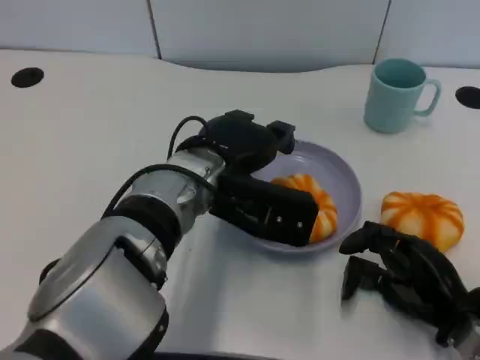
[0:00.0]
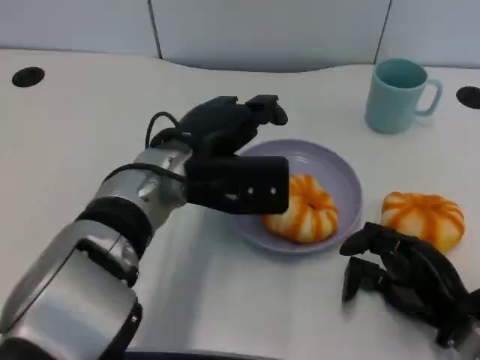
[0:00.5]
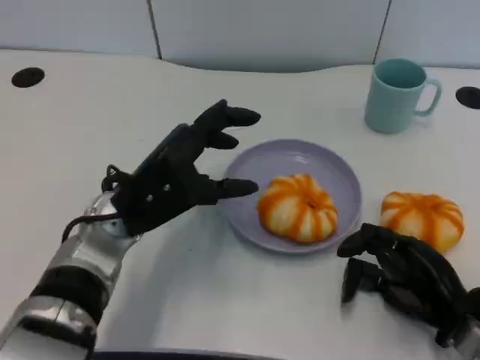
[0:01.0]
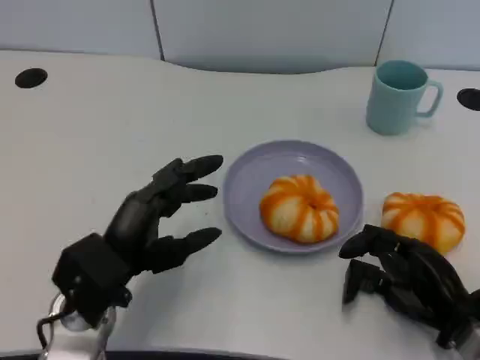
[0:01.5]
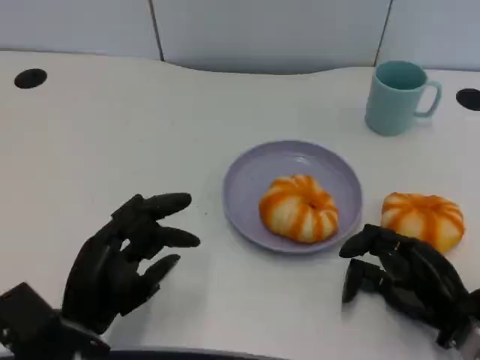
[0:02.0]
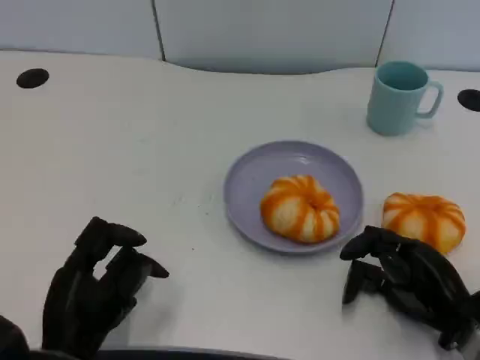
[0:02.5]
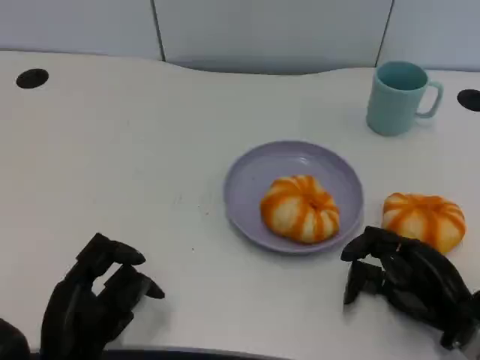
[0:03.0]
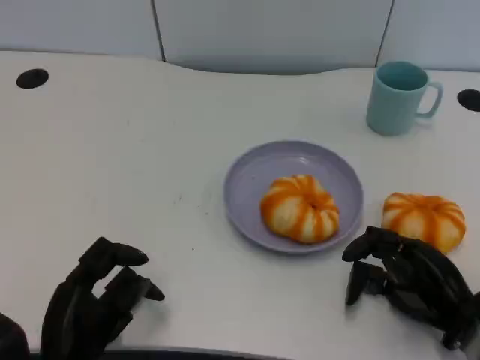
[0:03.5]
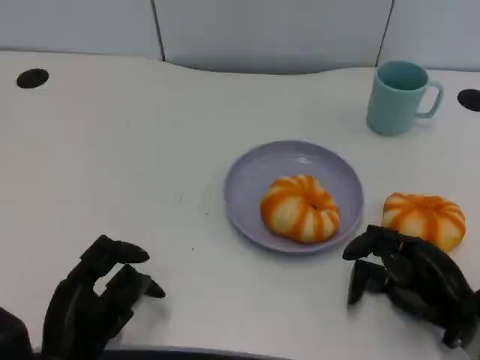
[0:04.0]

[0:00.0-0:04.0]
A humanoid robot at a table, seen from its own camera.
Task of the whole recording: Grasp the bread from the table and place it into the plate.
0:00.0 to 0:02.0: The left hand shifts about 20 cm to the left, backward and downward.
0:02.0 to 0:04.0: The hands move only a little.

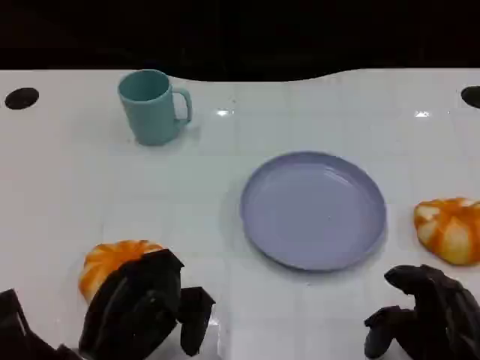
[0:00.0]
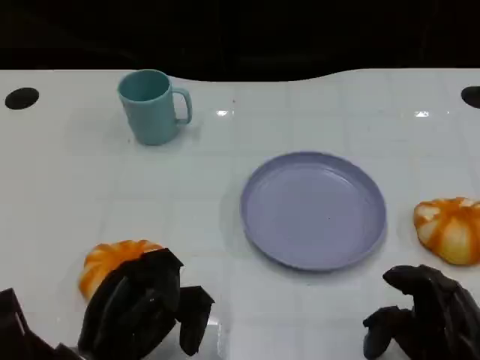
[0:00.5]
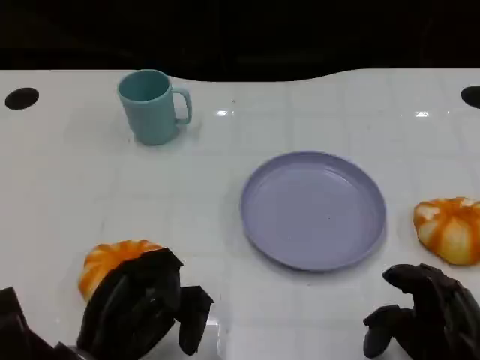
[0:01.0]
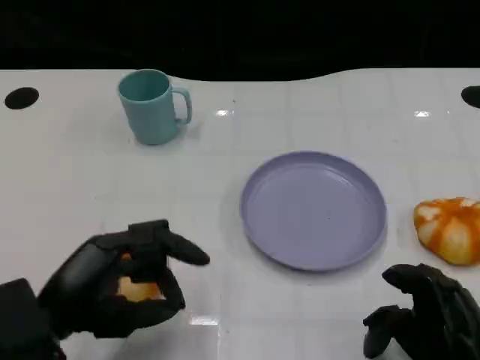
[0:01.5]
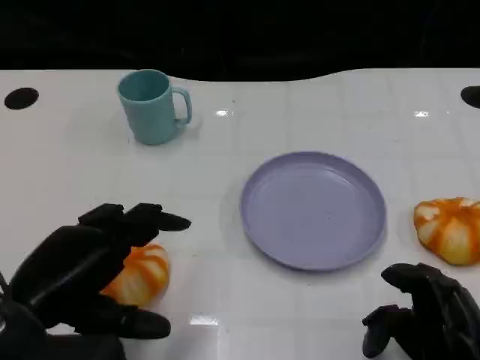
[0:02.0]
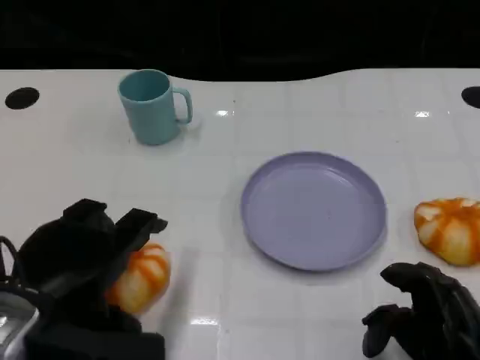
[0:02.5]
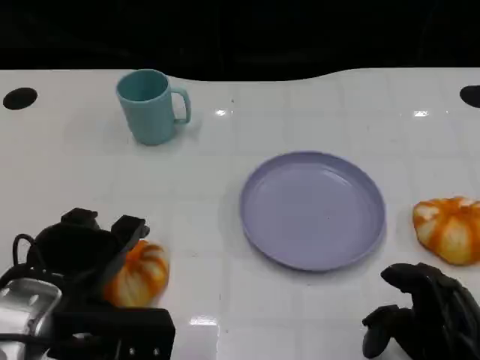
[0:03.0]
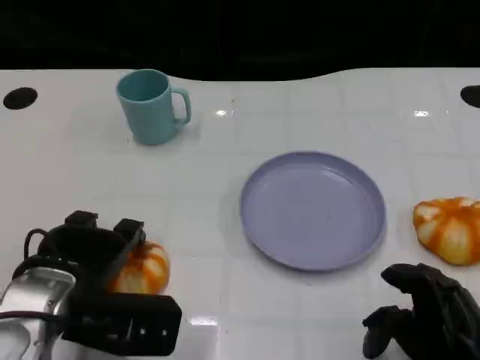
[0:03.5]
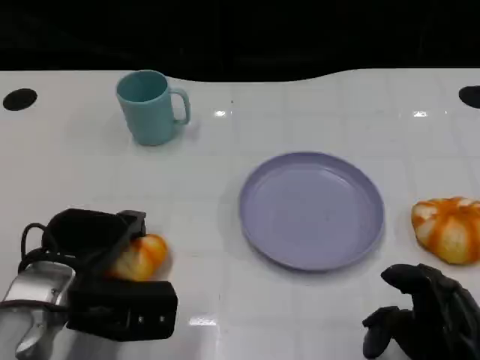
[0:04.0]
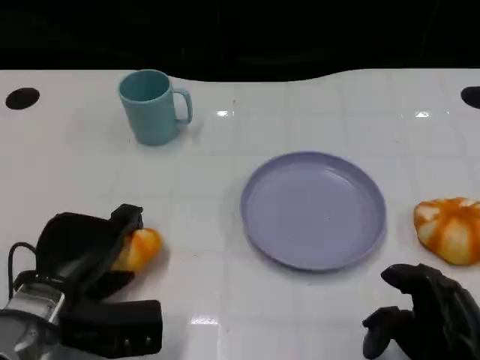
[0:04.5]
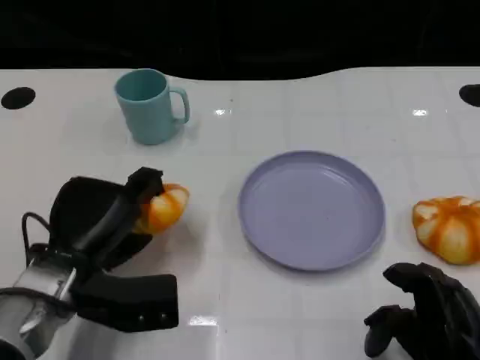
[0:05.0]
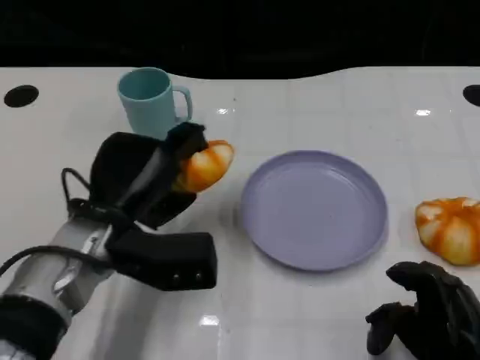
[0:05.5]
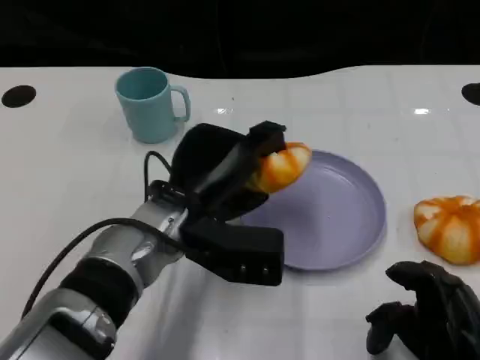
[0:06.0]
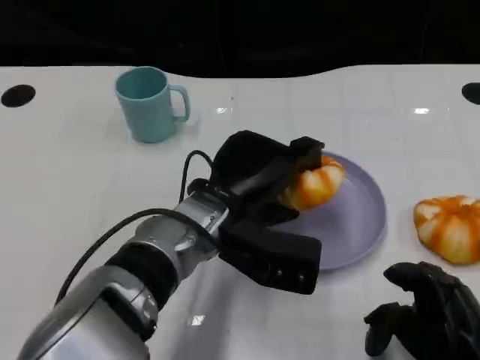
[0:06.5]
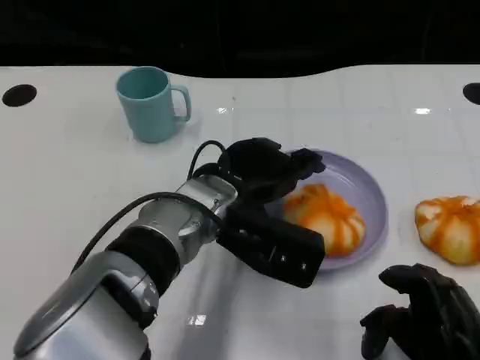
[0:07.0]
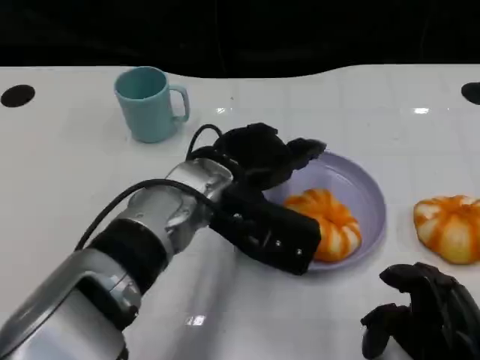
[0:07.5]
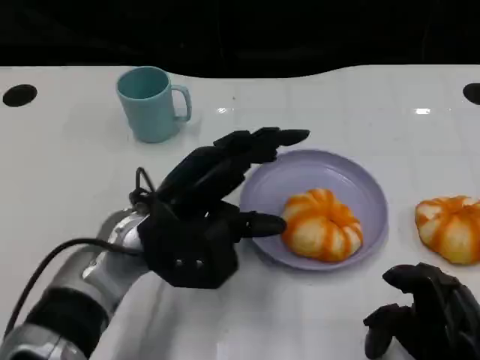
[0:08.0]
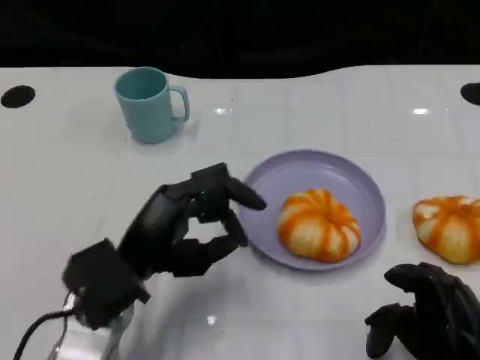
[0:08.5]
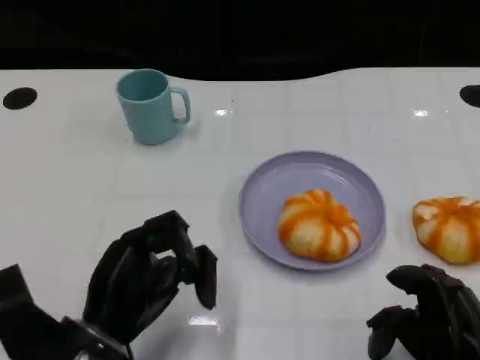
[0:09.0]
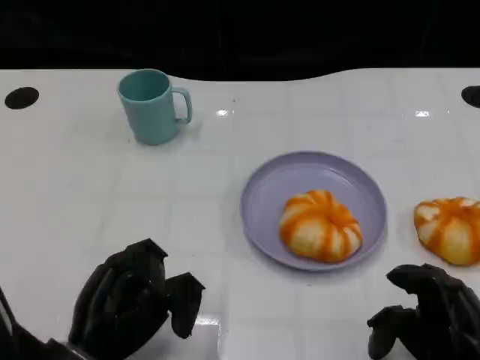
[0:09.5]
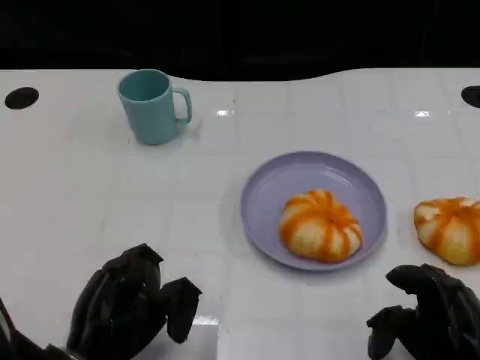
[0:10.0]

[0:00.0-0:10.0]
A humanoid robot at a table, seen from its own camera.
Task of the whole recording: Grasp the bread from the table and place it into the plate.
0:00.0 to 0:02.0: The left hand travels upward by roughly 10 cm.
0:02.0 to 0:04.0: The left hand is displaced forward and downward by some 10 cm.
0:04.0 to 0:06.0: The left hand travels to the right by approximately 10 cm.
0:08.0 to 0:10.0: The left hand goes roughly 15 cm backward, downward and to the left.

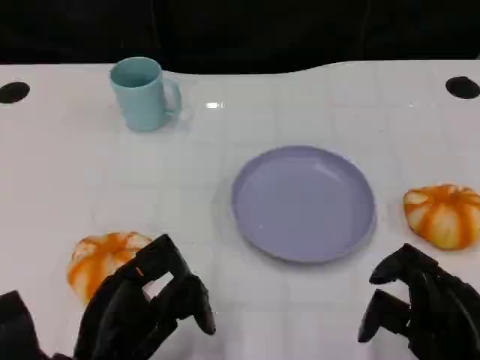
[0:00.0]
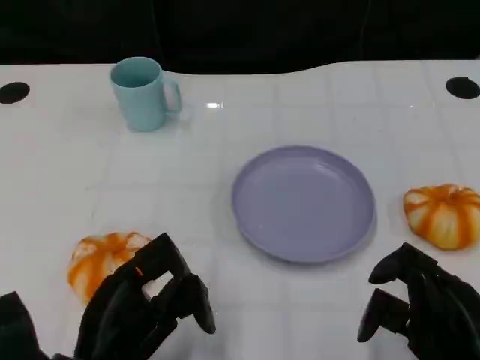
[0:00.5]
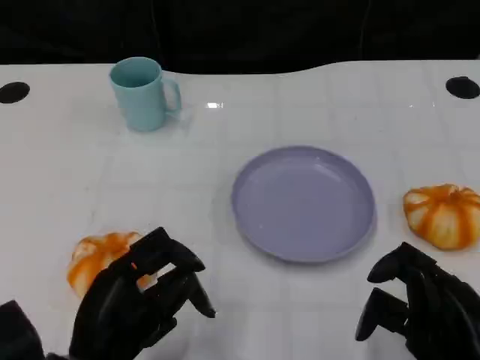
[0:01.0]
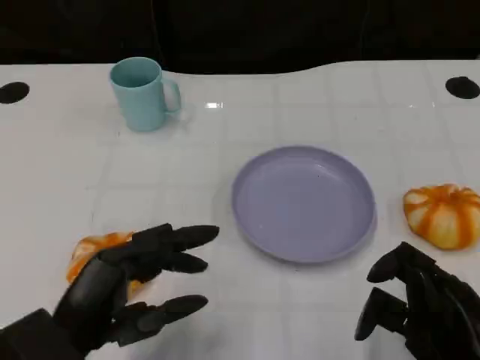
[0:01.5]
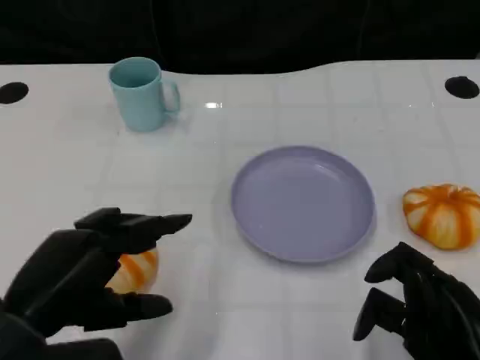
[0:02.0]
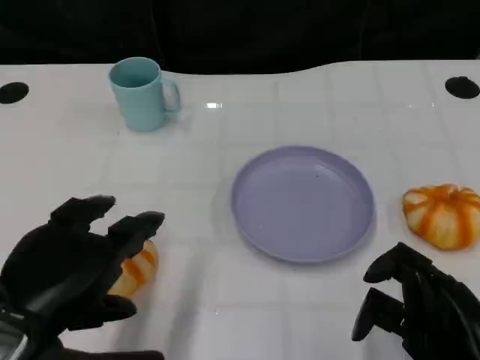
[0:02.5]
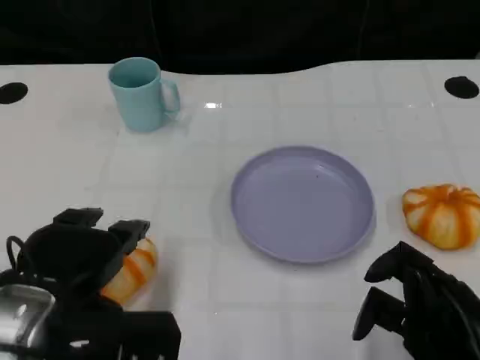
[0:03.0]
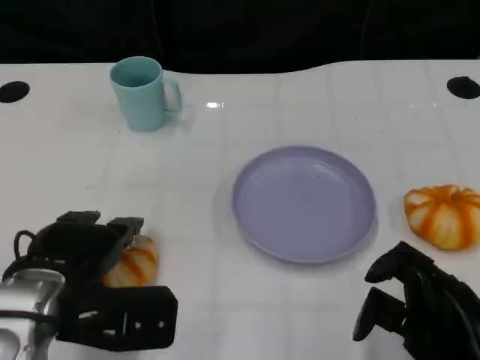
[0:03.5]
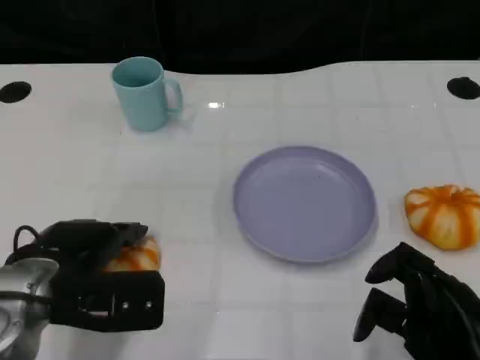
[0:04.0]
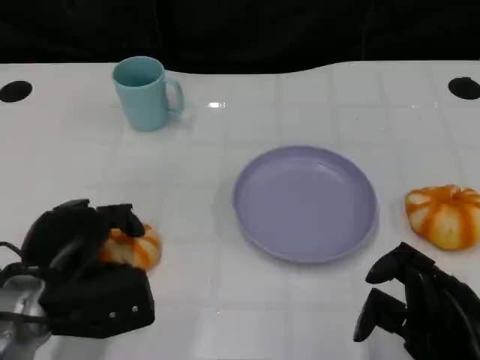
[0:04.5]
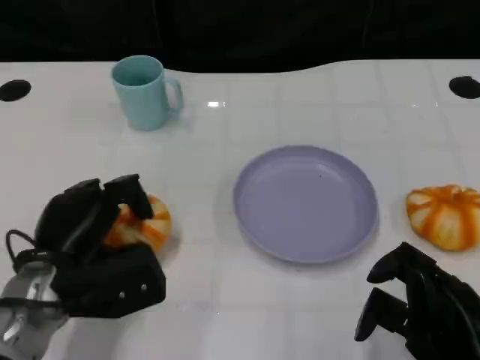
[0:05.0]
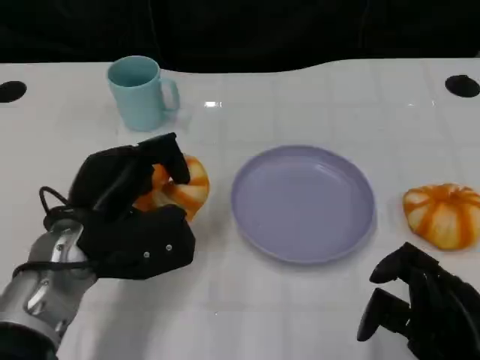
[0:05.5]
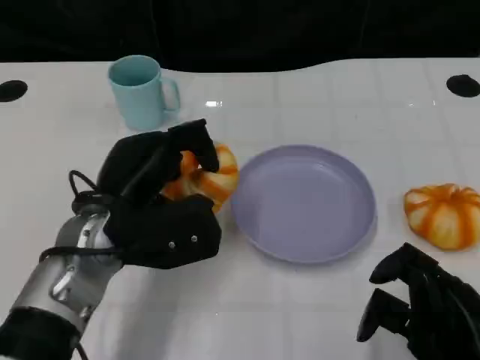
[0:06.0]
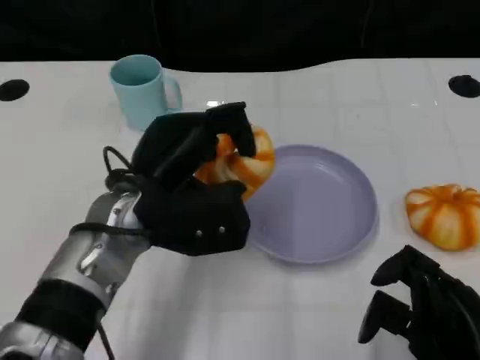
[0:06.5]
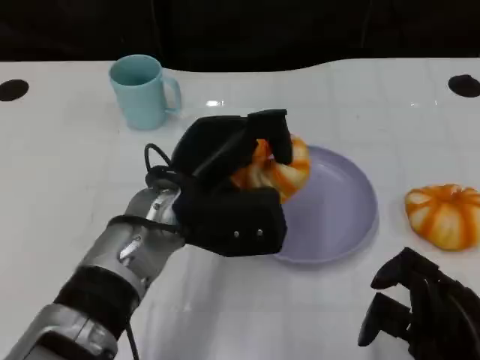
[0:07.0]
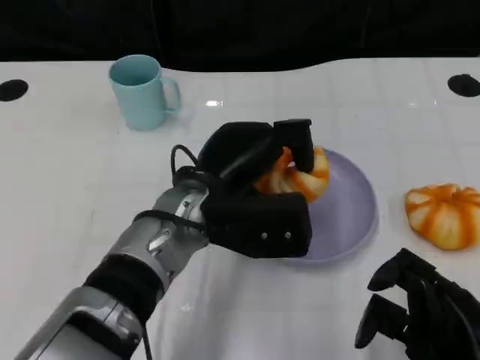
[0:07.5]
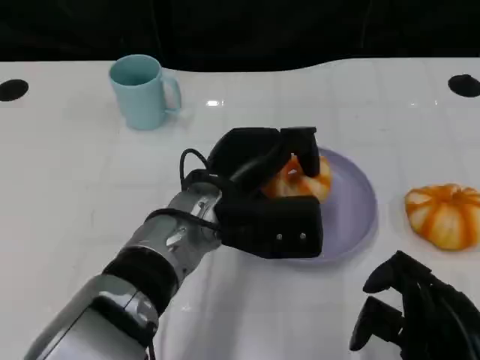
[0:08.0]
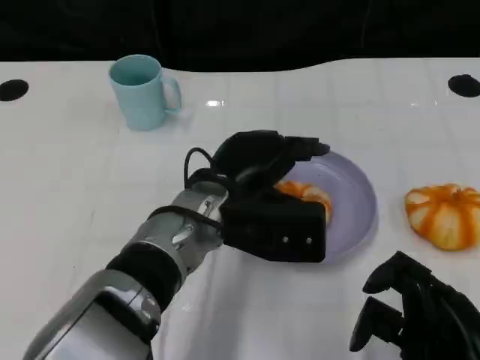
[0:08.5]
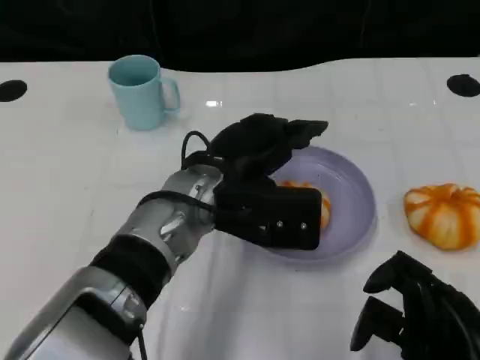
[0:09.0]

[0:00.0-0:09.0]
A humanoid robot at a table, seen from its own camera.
Task of the whole recording: Grasp the bread from the table and place it into the plate.
0:00.0 to 0:02.0: The left hand is displaced upward by roughly 10 cm.
0:02.0 to 0:04.5: The left hand travels downward and forward by roughly 10 cm.
0:04.5 to 0:07.0: The left hand shifts some 15 cm to the right and upward.

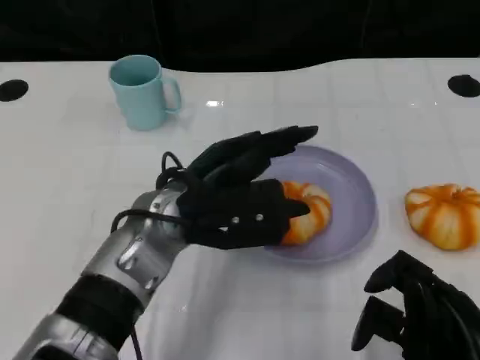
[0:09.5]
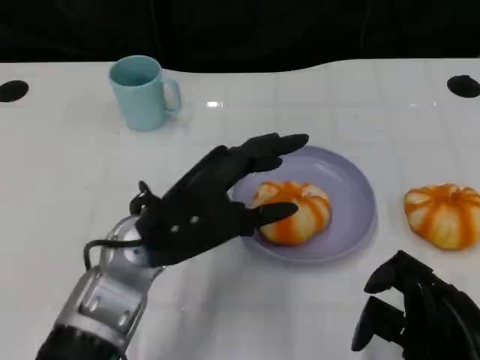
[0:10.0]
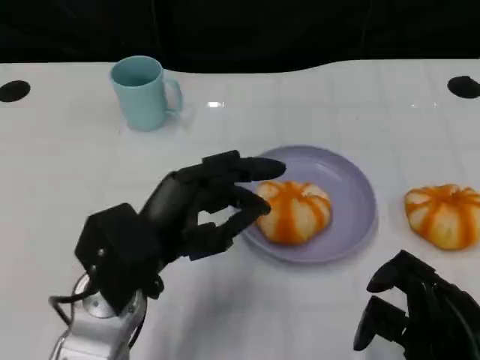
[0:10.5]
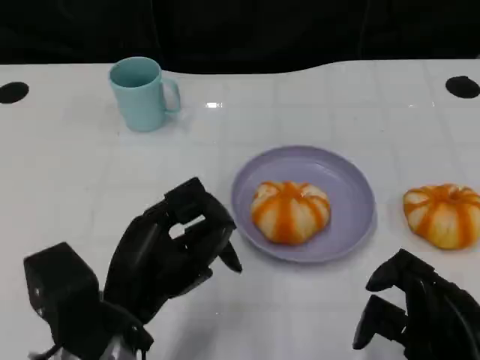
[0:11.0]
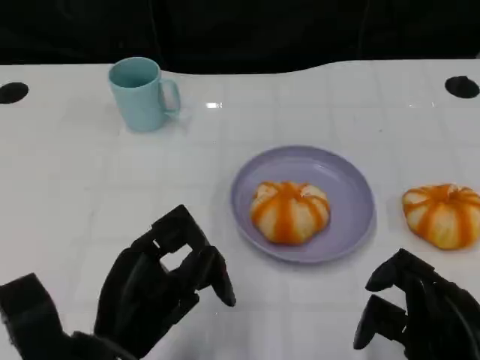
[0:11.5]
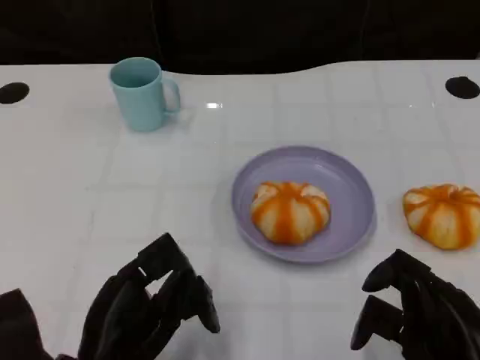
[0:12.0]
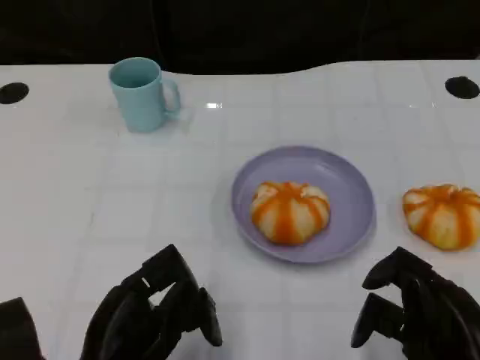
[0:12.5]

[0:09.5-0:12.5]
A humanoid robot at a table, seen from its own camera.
Task of the whole recording: Grasp the bread from the table and place it into the plate.
0:09.5 to 0:11.0: The left hand is displaced backward and to the left by roughly 10 cm.
0:11.0 to 0:12.5: The left hand changes place by roughly 5 cm.
